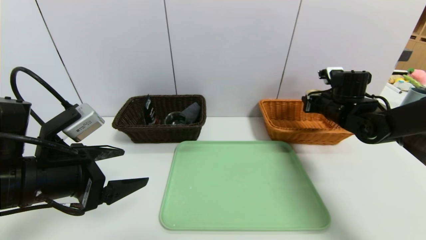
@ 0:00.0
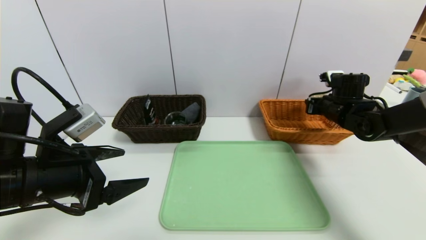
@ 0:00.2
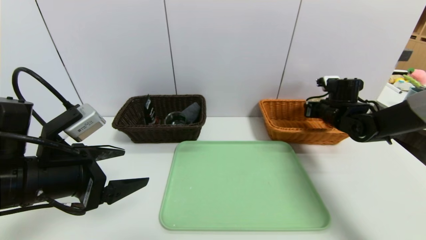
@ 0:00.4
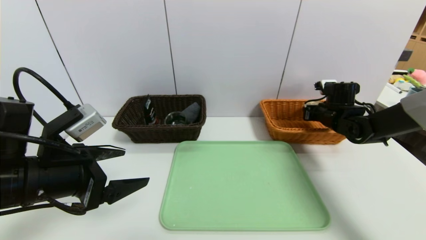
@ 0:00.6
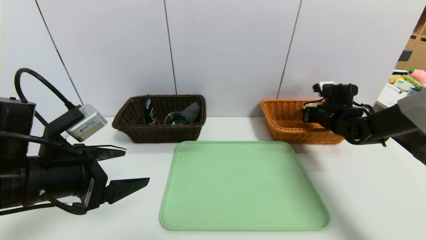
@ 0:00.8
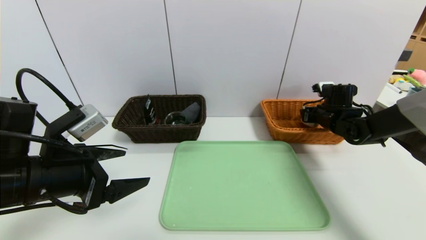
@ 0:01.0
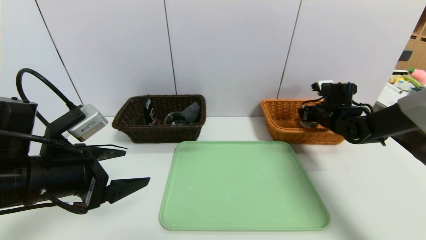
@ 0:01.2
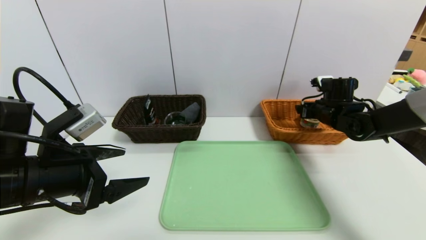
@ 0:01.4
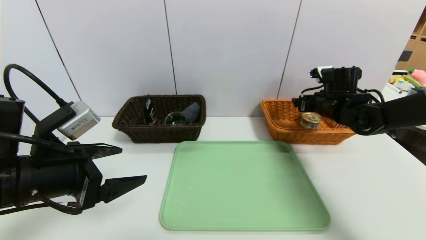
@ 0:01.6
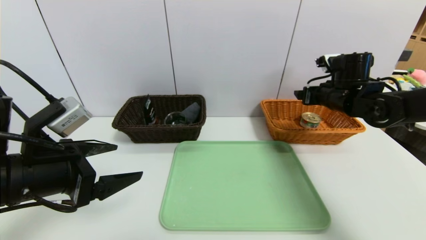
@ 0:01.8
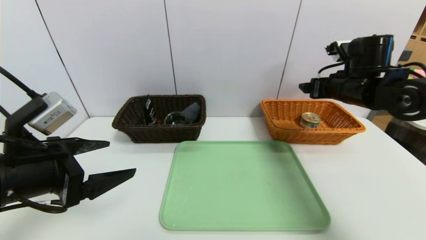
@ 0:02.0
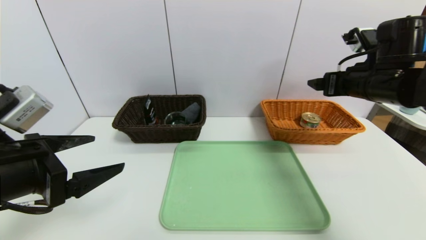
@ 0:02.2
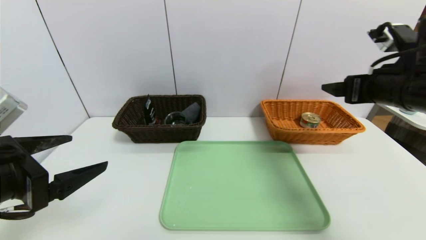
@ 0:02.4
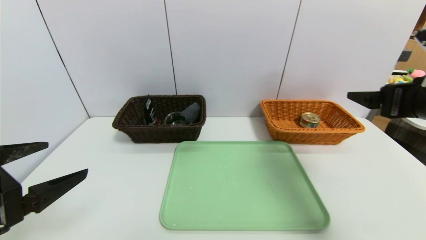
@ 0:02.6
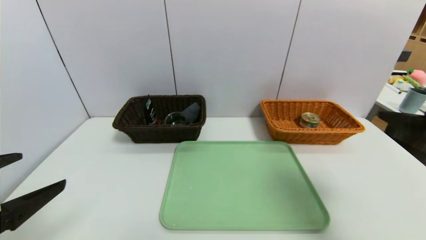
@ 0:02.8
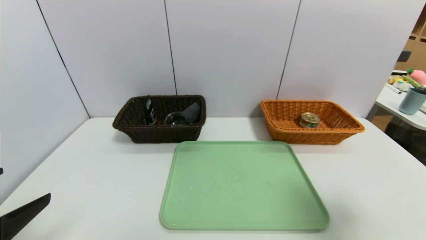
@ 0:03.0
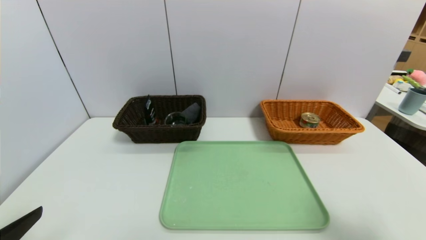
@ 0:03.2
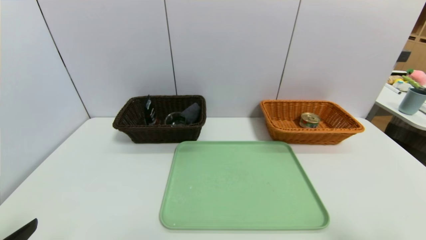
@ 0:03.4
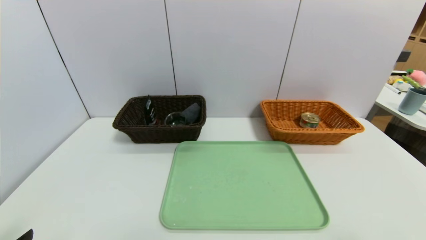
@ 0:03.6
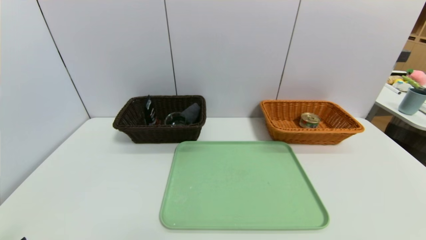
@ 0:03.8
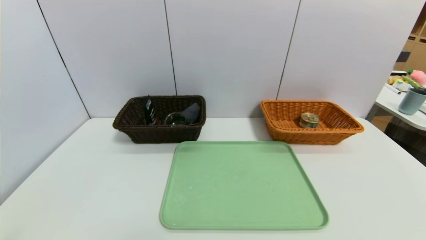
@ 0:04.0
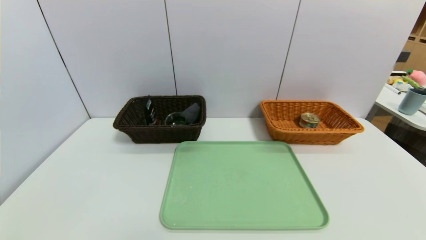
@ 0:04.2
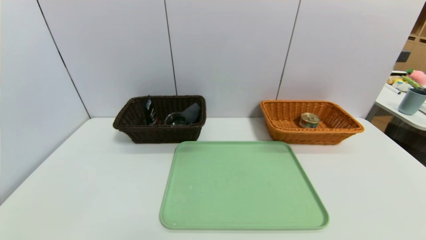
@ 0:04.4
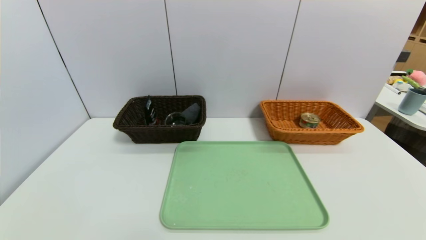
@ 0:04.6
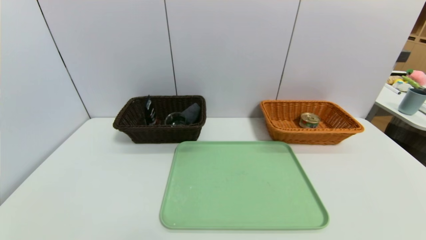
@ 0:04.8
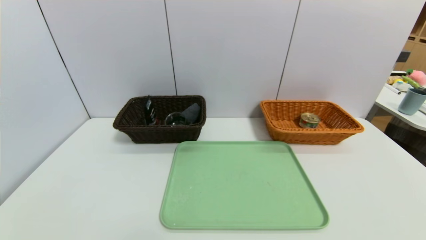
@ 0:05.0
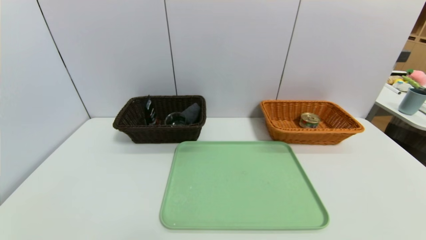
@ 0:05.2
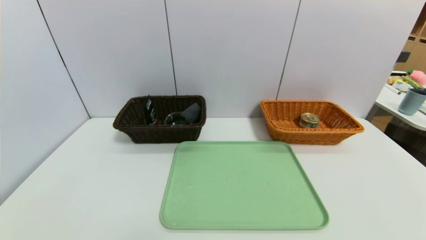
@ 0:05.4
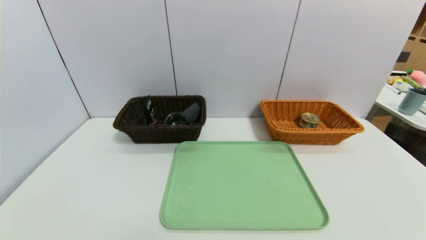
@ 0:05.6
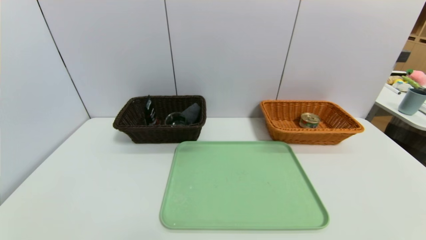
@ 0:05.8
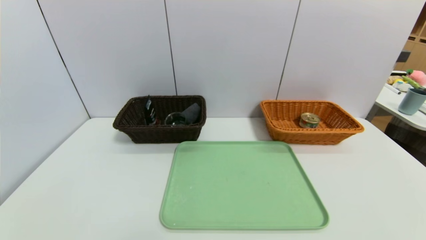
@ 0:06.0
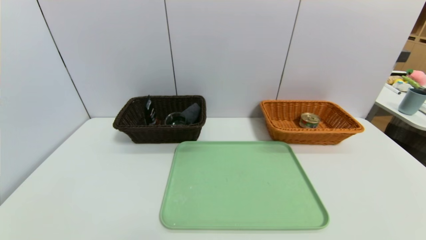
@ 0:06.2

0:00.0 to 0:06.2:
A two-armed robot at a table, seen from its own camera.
Task of the whole recording: place the food in the right basket with the right gripper, and place the non food items in the left basket with the left gripper.
Step, 0:00.0 to 0:02.6: Grasp the can and put it in the right basket.
0:00.0 to 0:01.6: The right gripper opens up.
0:01.6 to 0:03.2: The left gripper goes about 15 cm backward and to the left. The right gripper moves backward, about 35 cm.
0:03.2 to 0:04.6: The left gripper moves downward and backward, roughly 10 cm, while the right gripper goes roughly 15 cm backward and downward.

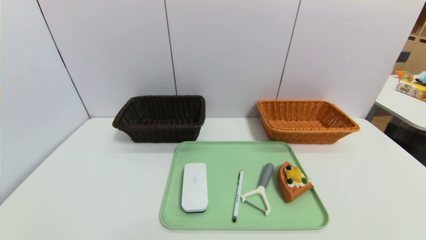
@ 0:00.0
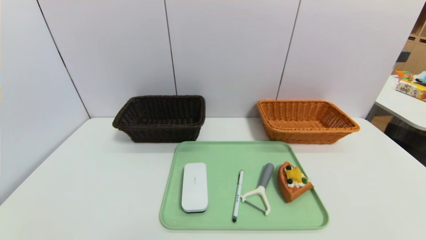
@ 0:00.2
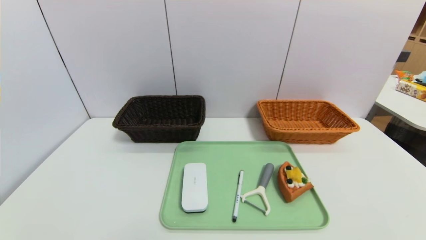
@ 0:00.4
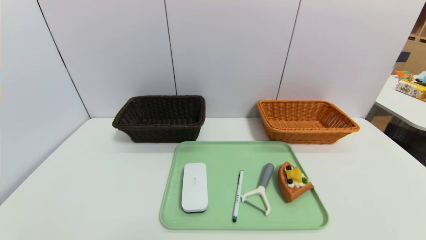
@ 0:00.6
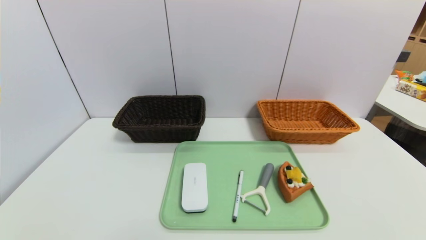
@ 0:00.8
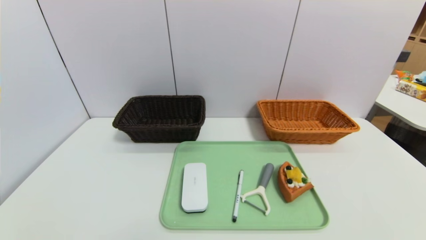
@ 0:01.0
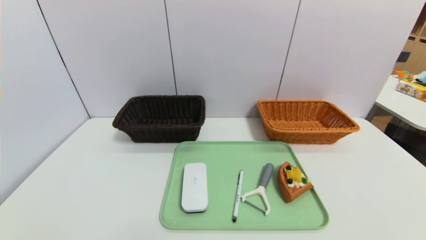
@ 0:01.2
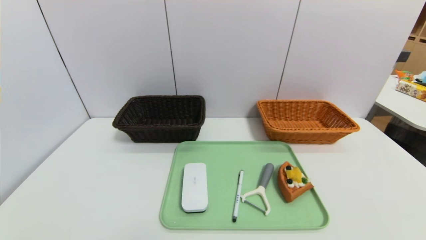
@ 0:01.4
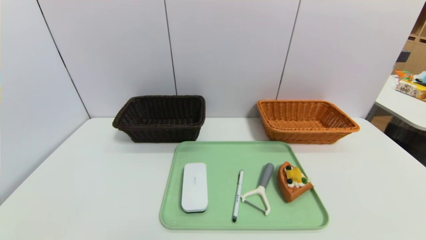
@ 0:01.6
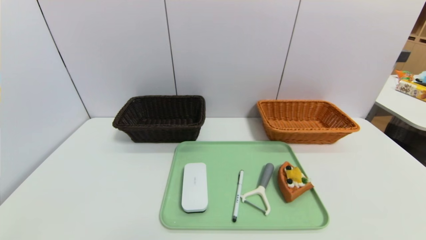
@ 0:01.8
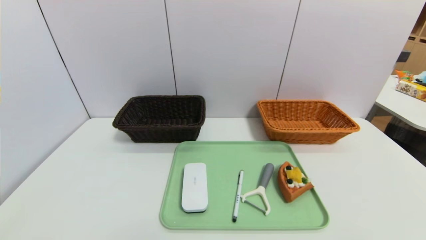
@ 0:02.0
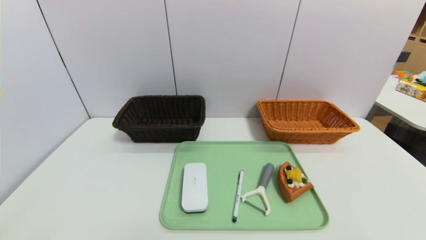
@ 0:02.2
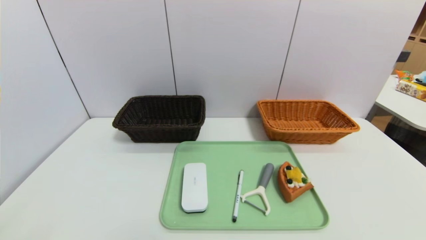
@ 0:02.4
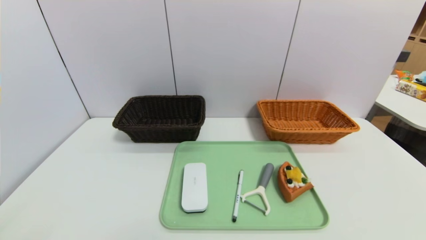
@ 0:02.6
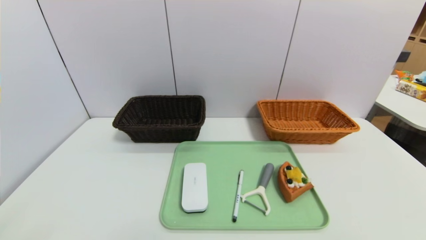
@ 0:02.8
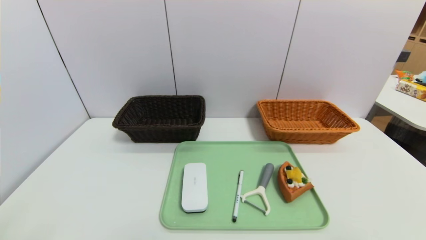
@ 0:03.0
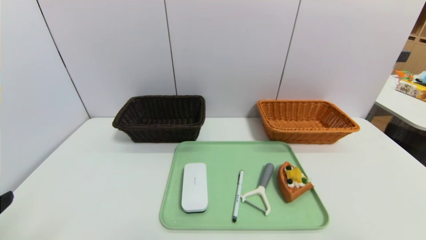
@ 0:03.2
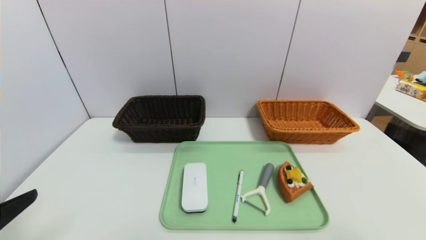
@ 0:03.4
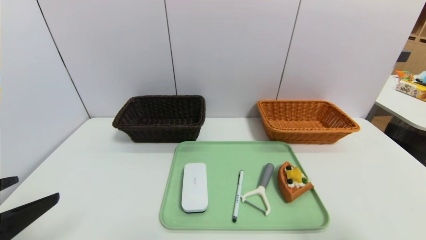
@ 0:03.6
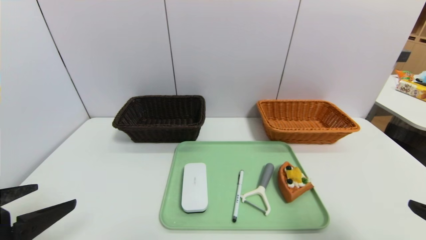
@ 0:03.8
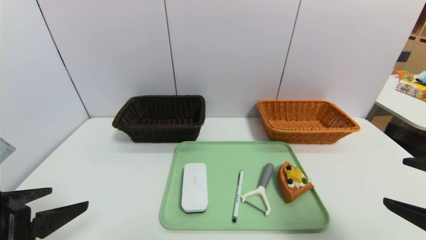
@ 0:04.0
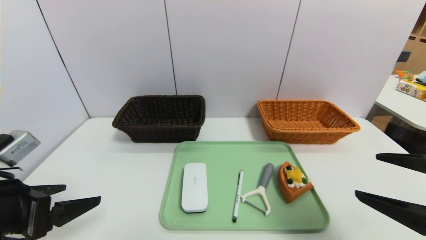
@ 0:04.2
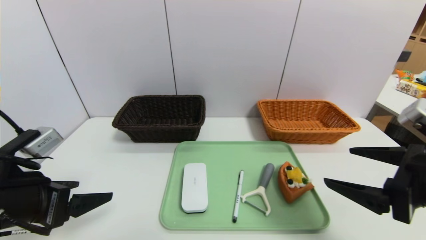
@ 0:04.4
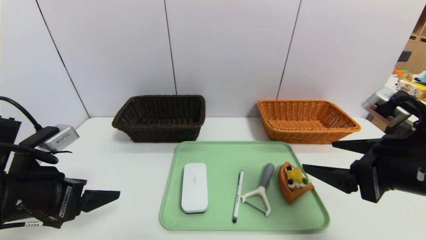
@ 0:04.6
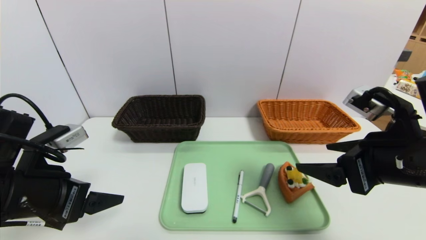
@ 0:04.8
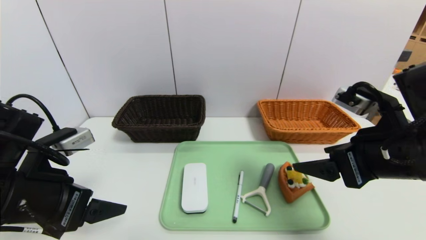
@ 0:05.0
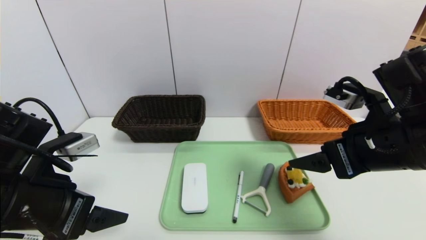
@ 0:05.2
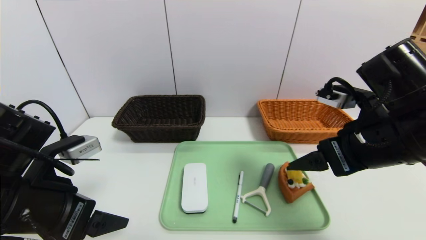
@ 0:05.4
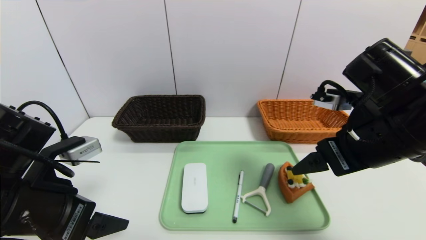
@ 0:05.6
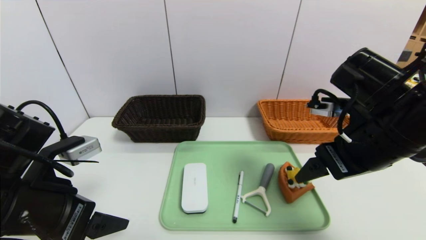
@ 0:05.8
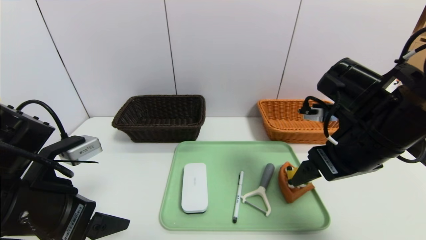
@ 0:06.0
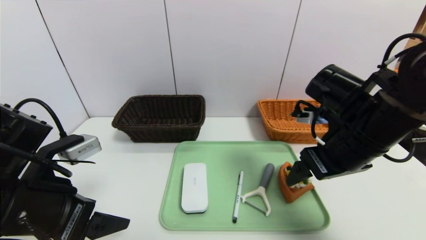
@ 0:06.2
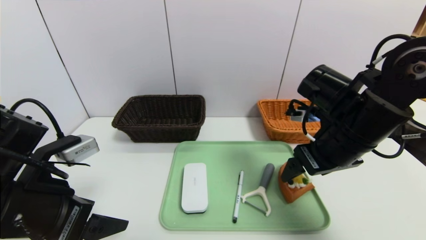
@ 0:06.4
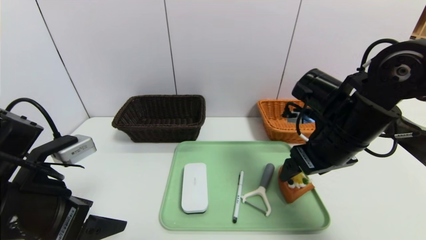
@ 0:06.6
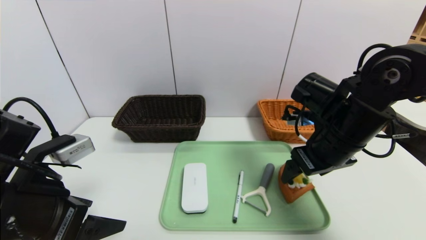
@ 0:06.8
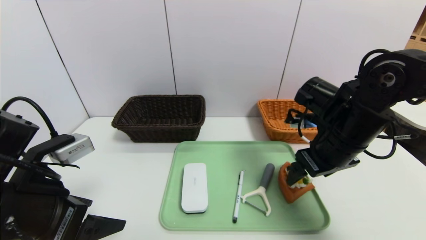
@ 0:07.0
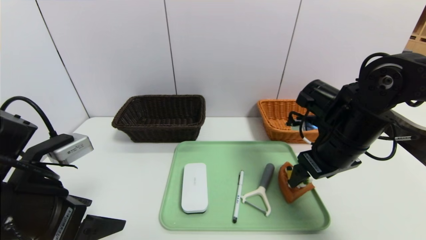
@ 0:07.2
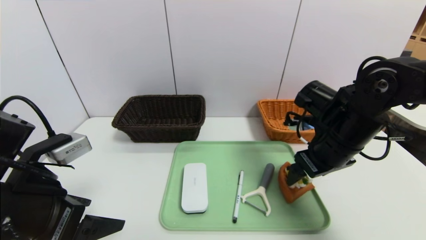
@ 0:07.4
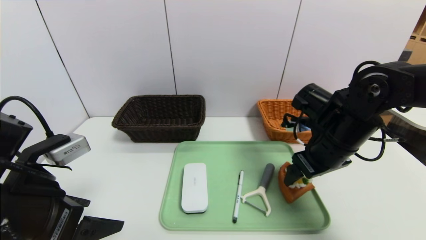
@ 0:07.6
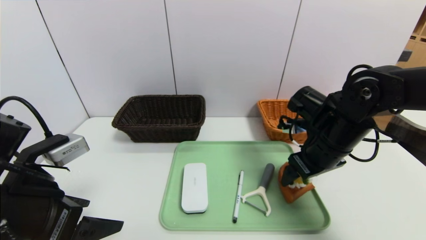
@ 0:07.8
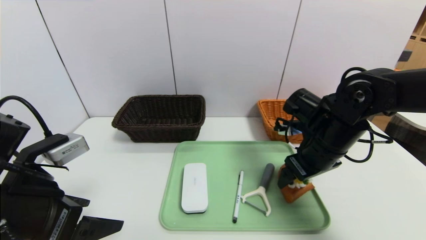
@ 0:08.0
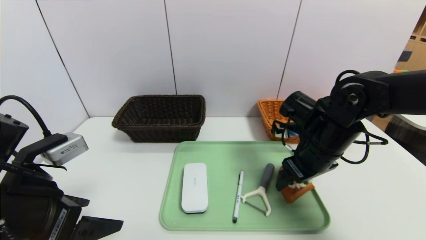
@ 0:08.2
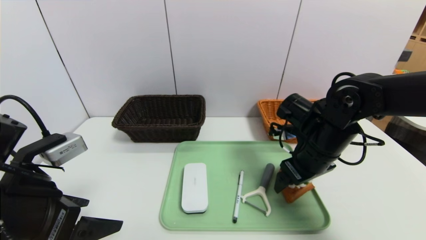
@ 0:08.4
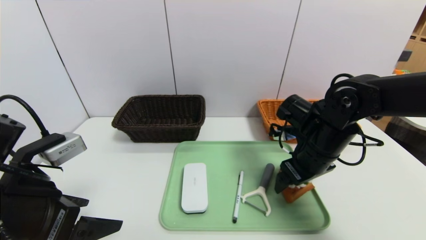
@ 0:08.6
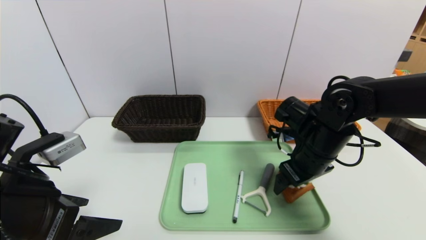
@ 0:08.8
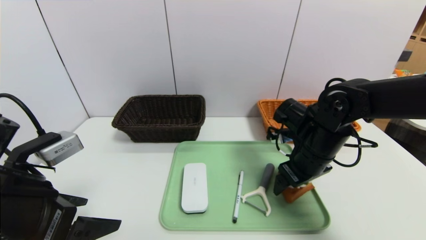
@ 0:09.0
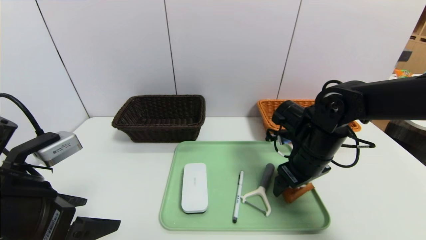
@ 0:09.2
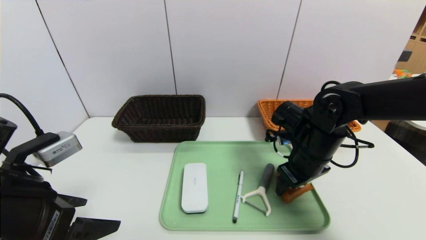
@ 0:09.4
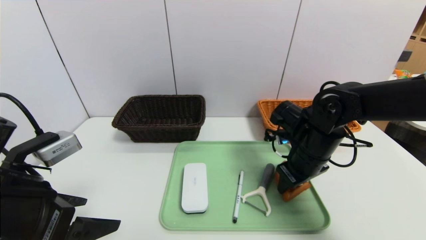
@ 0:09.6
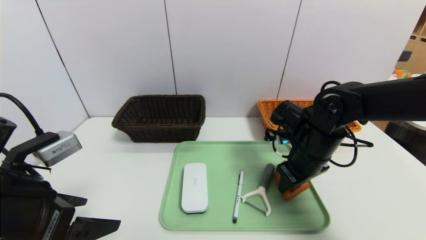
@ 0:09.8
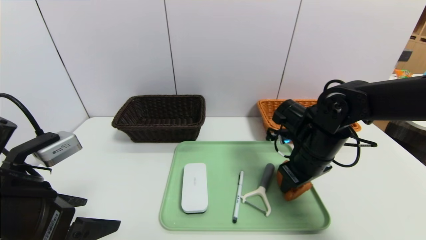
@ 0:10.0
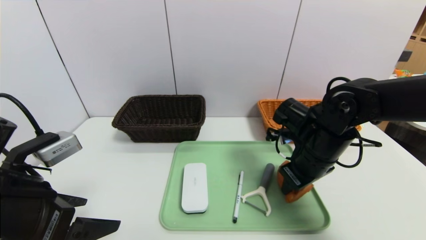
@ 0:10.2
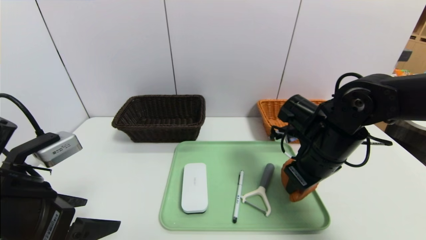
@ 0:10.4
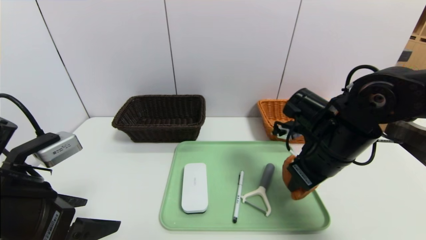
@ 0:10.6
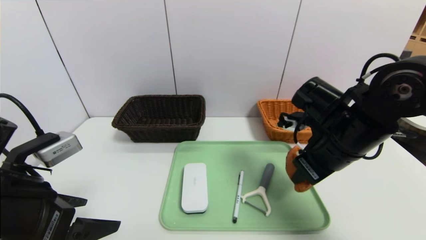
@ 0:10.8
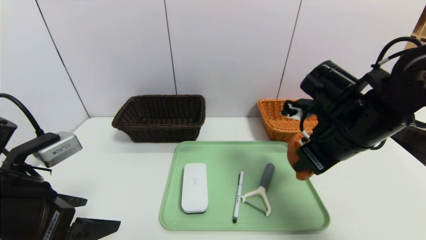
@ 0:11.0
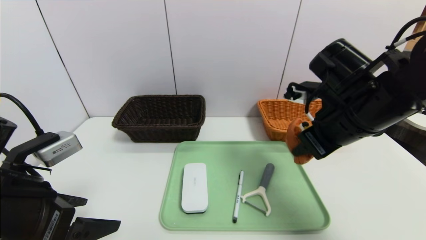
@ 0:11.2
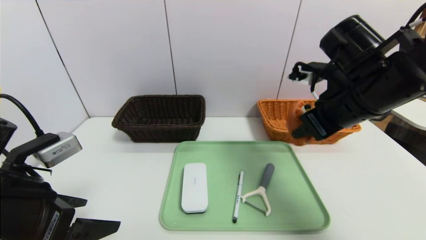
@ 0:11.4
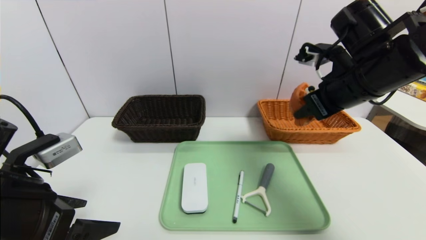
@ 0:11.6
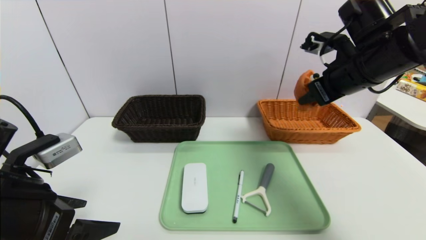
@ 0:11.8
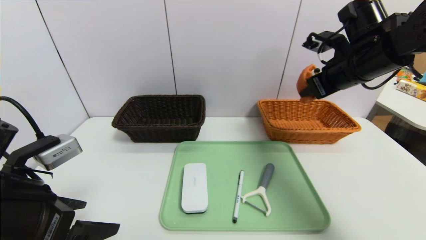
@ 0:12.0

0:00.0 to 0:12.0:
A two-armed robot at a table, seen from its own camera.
Task of the whole recording: place the food in the right basket with the right gripper, and place the non food items in the left basket with the left gripper.
0:03.0 to 0:04.4: The right gripper is displaced forward and to the left by roughly 15 cm, while the left gripper is displaced forward by about 15 cm.
0:04.4 to 0:06.0: The right gripper travels forward and to the left by about 10 cm.
0:06.0 to 0:07.6: The right gripper goes roughly 10 cm forward and downward.
0:07.6 to 0:09.0: The grippers stay close to where they were, moving slightly.
0:09.0 to 0:10.4: The right gripper closes.
0:10.4 to 0:12.0: The right gripper goes some 15 cm upward, forward and to the right.
